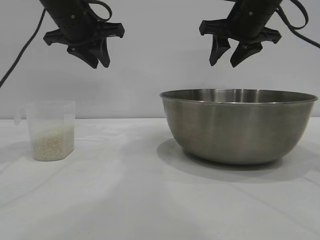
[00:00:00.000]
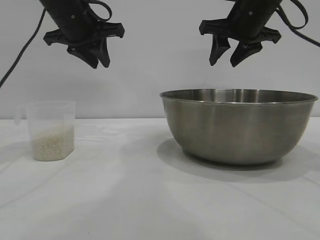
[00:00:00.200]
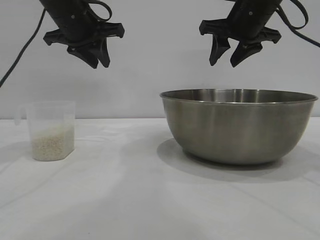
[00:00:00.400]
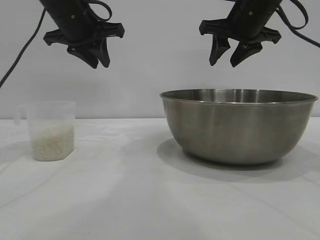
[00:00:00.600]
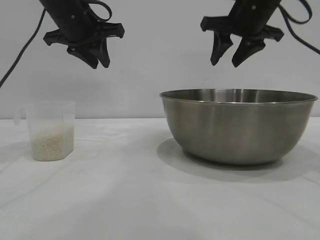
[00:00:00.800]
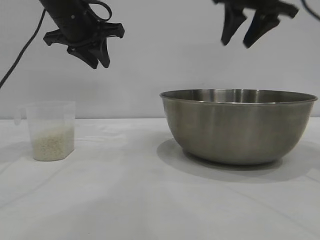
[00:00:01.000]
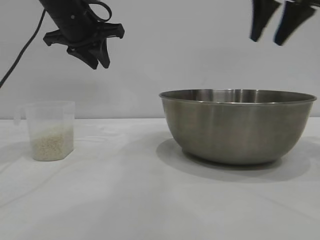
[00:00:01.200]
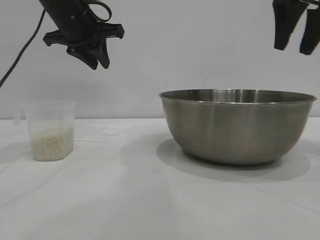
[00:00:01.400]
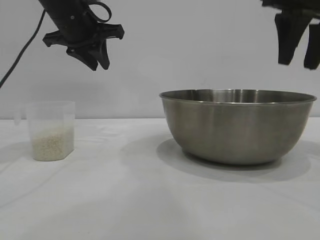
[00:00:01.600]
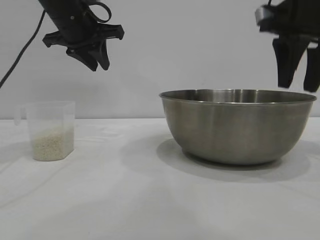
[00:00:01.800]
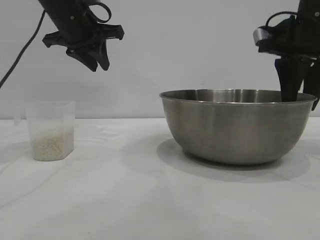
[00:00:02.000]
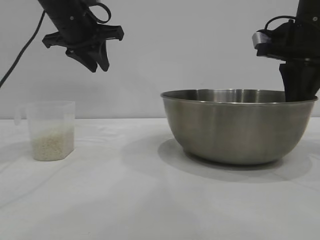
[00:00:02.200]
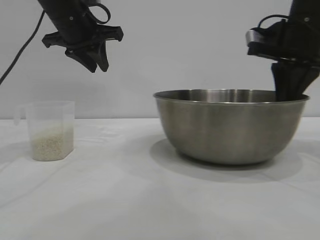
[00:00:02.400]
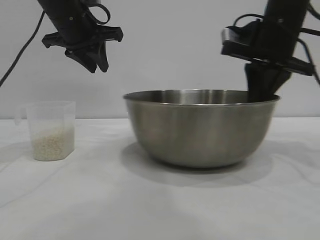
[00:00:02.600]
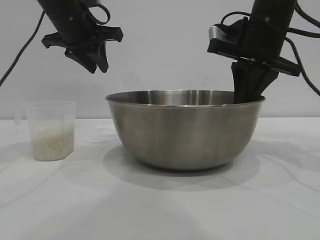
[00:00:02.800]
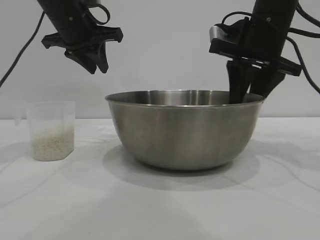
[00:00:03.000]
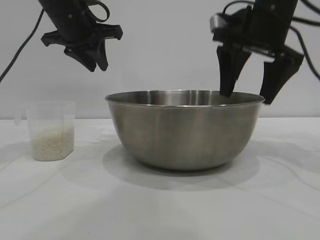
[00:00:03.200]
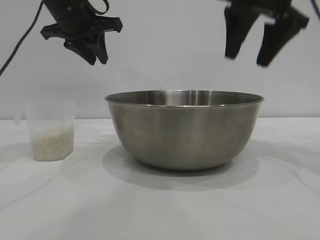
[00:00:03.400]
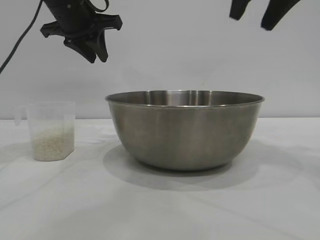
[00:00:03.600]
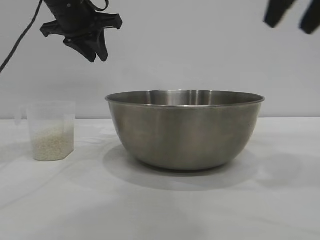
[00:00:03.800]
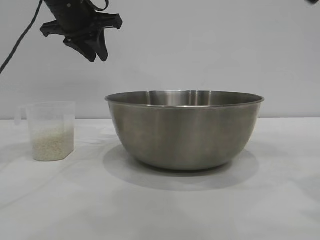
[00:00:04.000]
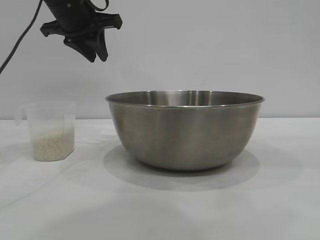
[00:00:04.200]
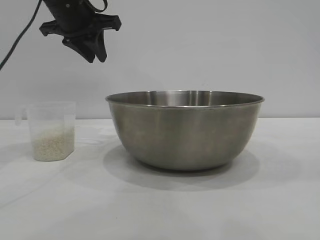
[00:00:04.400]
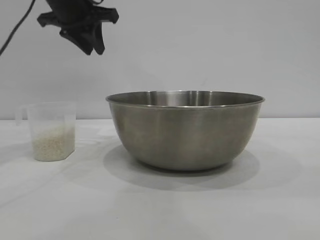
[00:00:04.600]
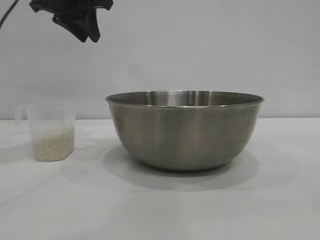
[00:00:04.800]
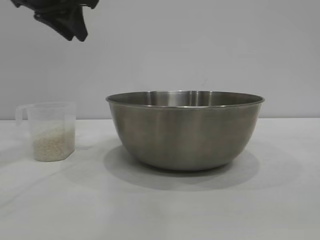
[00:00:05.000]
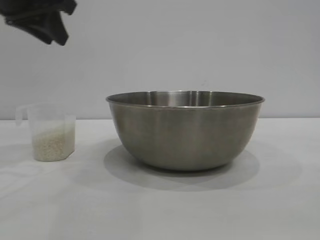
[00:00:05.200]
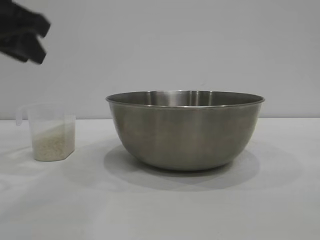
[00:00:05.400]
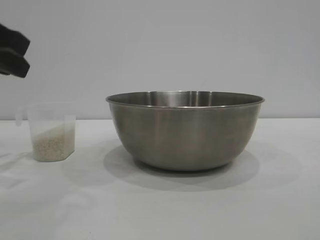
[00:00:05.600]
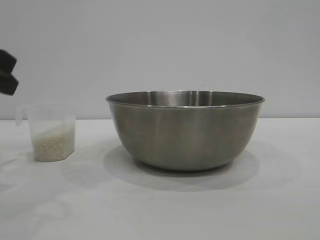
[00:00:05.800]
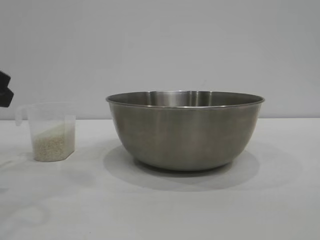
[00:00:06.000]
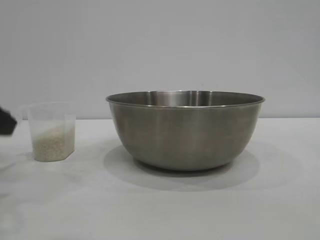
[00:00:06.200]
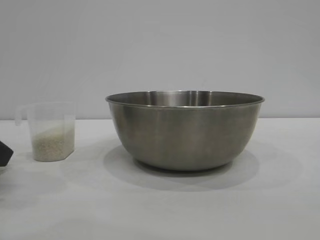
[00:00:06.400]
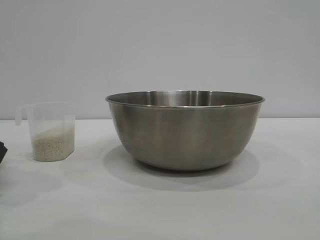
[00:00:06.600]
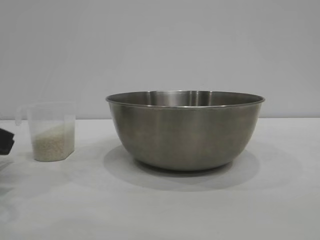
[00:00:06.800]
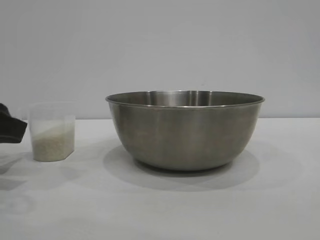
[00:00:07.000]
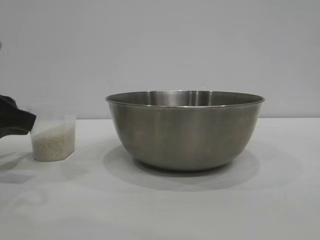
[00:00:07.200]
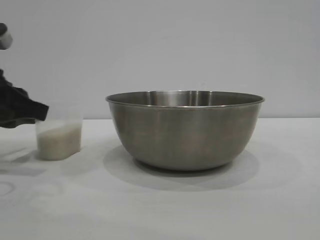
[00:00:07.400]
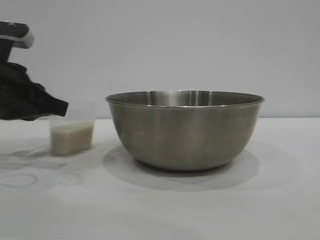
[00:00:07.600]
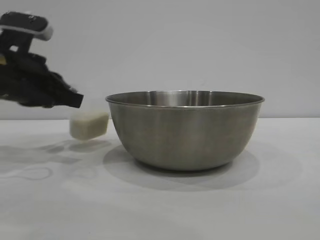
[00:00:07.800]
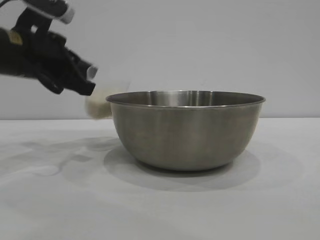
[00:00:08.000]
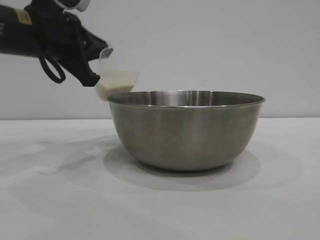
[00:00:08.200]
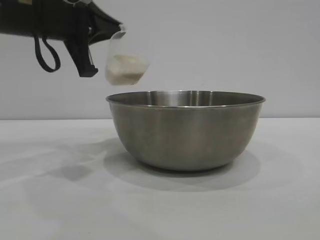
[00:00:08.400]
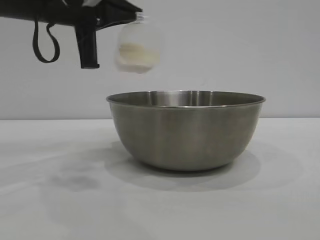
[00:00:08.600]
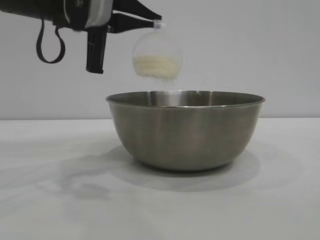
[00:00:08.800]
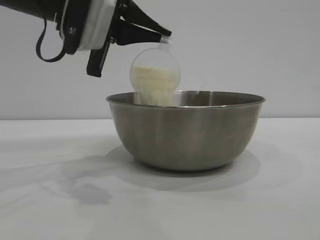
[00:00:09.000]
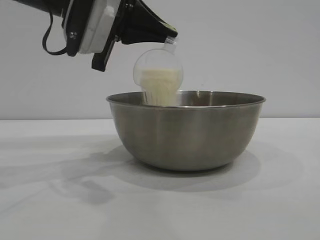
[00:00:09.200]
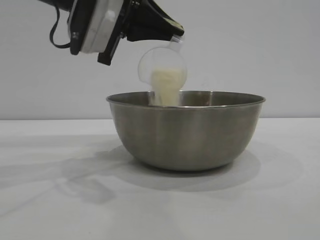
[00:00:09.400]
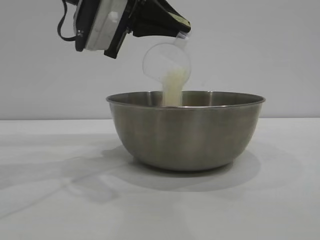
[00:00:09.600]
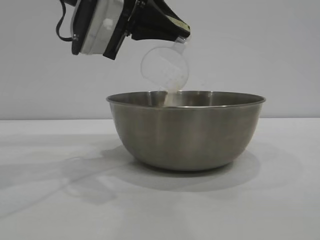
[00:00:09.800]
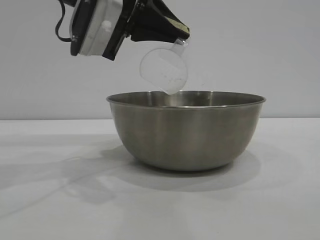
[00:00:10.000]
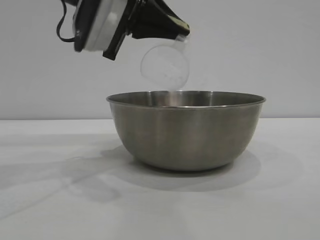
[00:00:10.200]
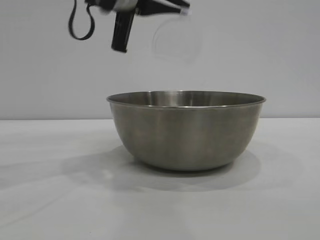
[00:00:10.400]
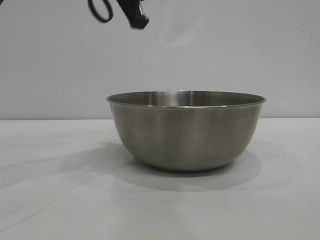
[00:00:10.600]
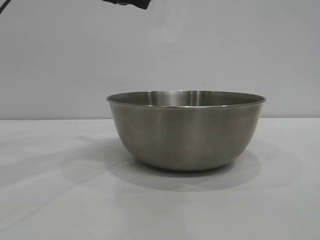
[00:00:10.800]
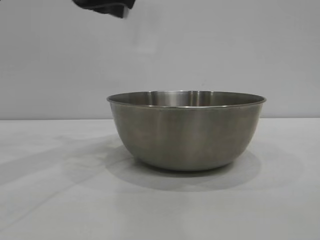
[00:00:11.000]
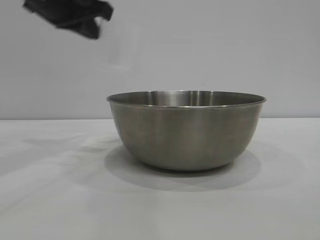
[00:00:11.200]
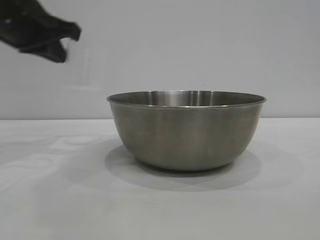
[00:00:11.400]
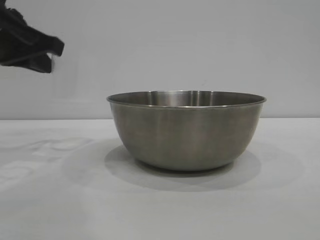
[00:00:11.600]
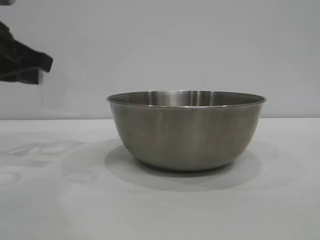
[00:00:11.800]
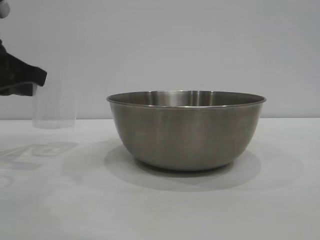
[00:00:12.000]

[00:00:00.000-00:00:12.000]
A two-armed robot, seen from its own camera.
Task of the whole recording: the right gripper grasp the rice container and place it in the center of the table, the left gripper grasp the rice scoop and pour the rice into the rice container.
Step, 00:00:00.000 to 00:00:03.200: Move the bowl to the center of view with the right gripper.
Step, 00:00:03.400 to 00:00:07.800: Pick up the cup with rice in it with the left gripper.
Step, 00:00:08.000 to 00:00:10.400: Pour the rice from the cup into the bowl with the left gripper.
